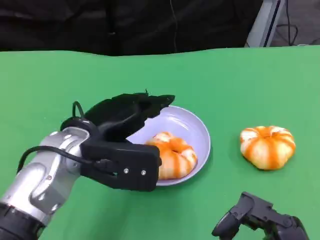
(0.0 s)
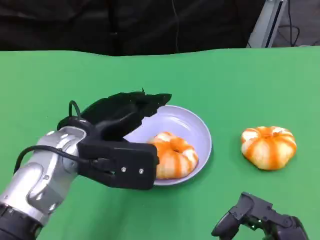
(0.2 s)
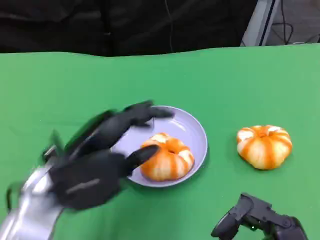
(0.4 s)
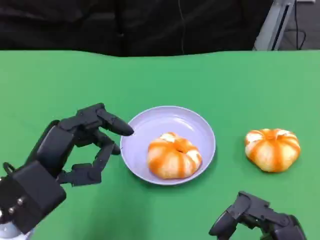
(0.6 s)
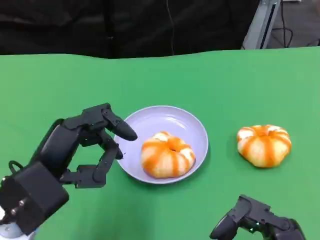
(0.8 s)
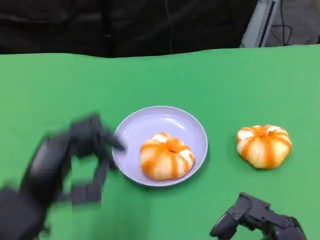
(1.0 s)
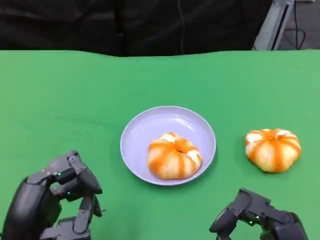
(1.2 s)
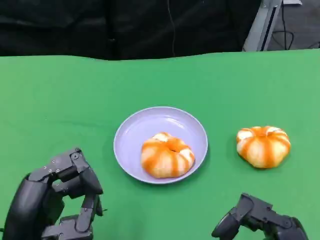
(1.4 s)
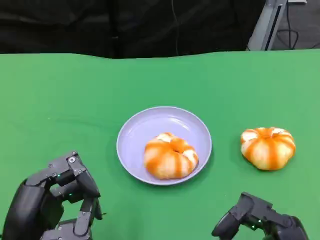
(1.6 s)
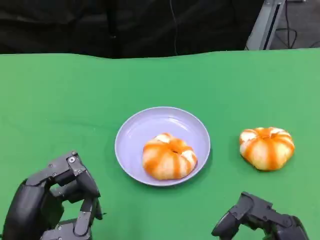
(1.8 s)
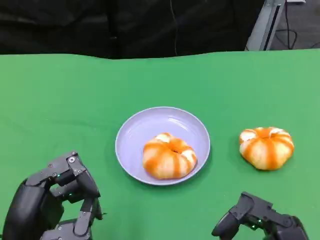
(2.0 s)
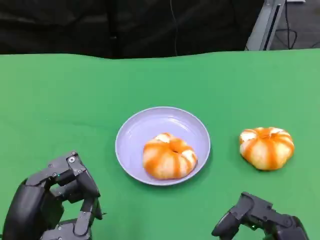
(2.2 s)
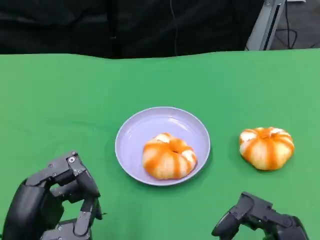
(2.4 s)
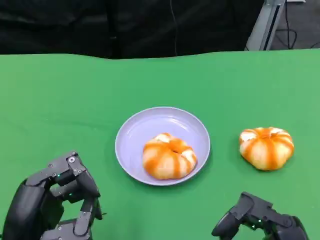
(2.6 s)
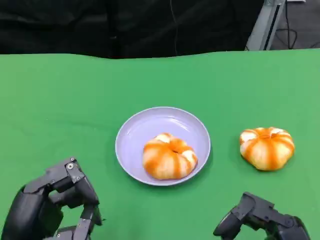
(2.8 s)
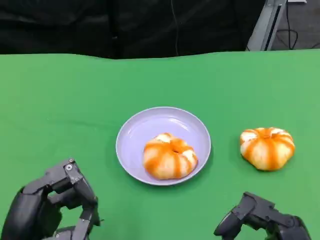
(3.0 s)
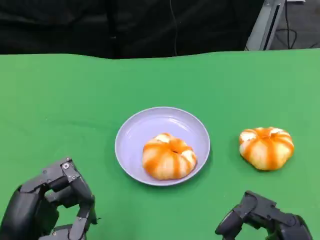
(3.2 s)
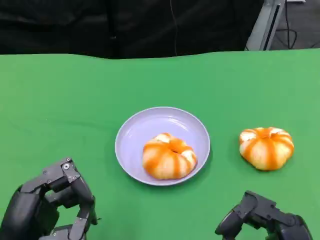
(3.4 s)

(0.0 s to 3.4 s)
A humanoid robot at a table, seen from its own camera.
Task of the whole recording: Grasp the bread from the table and place it into the plate.
0.0 s - 1.6 s: The left hand goes some 15 cm backward and to the left.
1.6 s - 3.4 s: The two hands keep their place.

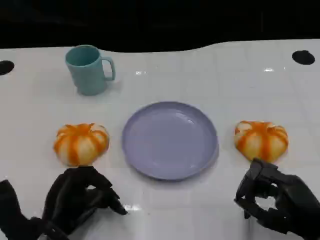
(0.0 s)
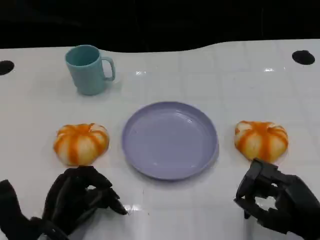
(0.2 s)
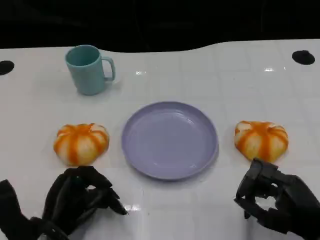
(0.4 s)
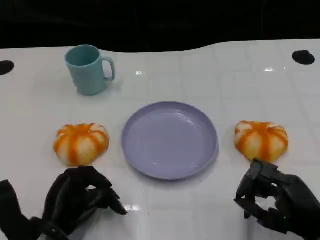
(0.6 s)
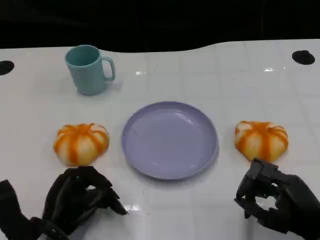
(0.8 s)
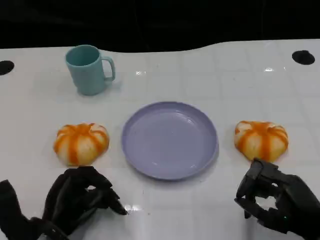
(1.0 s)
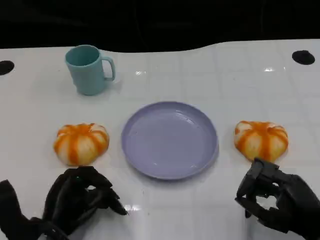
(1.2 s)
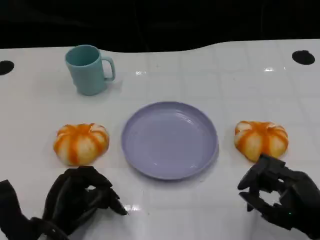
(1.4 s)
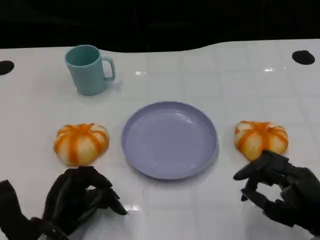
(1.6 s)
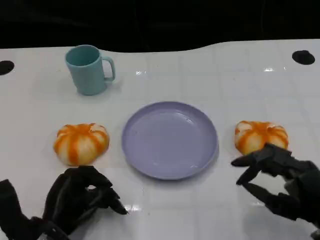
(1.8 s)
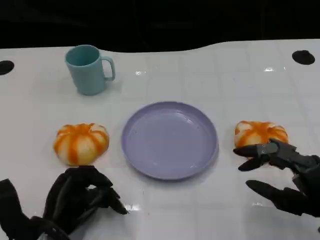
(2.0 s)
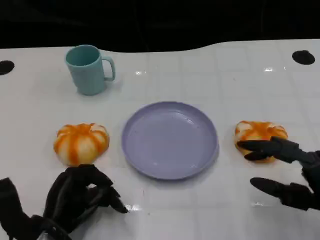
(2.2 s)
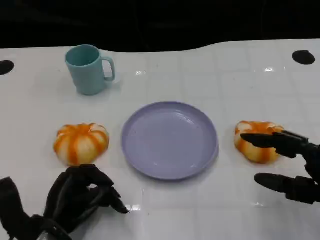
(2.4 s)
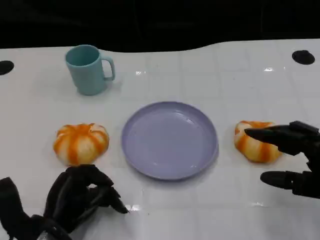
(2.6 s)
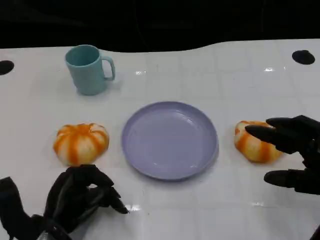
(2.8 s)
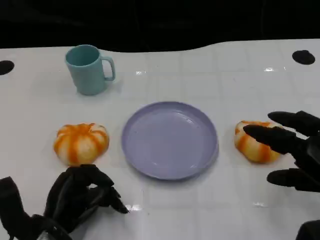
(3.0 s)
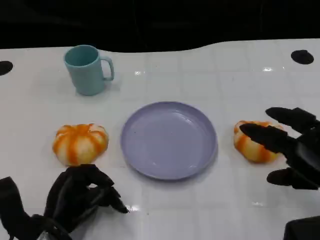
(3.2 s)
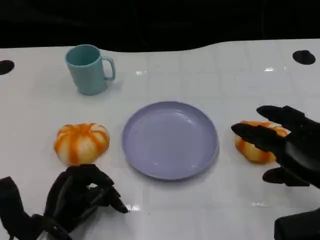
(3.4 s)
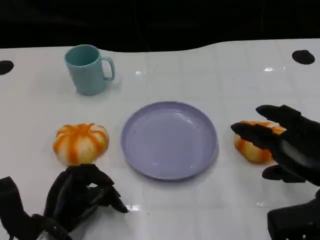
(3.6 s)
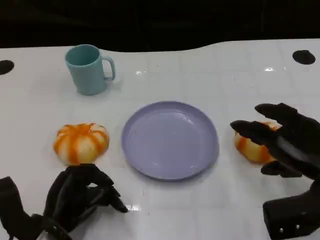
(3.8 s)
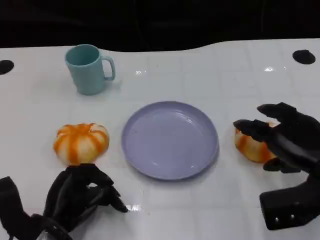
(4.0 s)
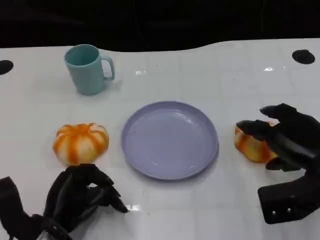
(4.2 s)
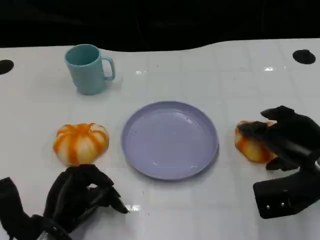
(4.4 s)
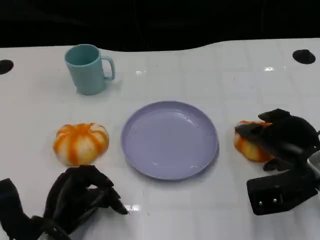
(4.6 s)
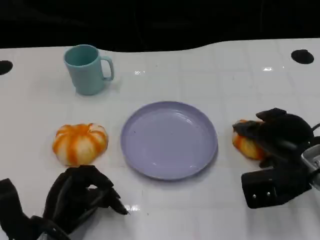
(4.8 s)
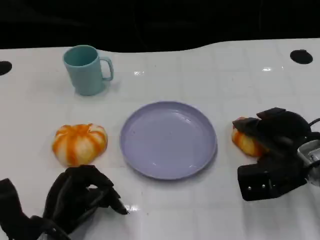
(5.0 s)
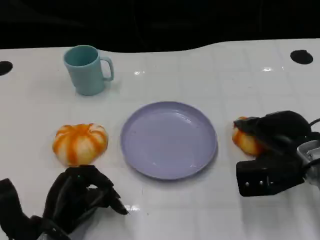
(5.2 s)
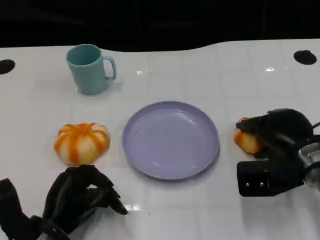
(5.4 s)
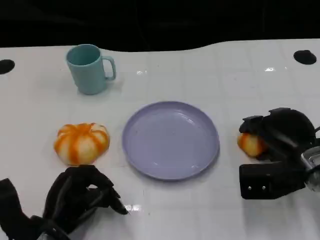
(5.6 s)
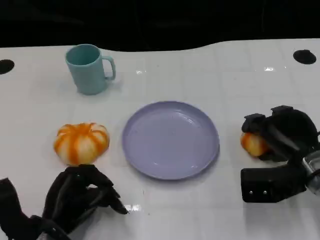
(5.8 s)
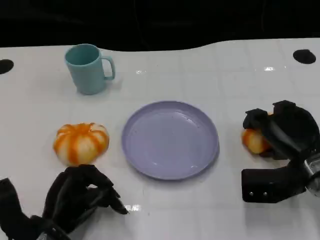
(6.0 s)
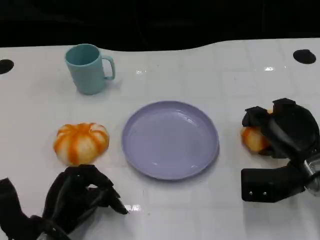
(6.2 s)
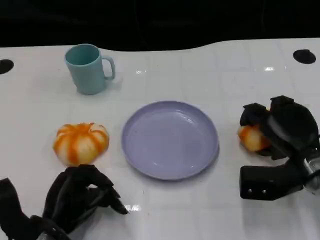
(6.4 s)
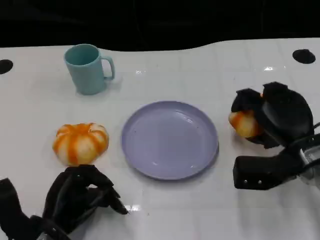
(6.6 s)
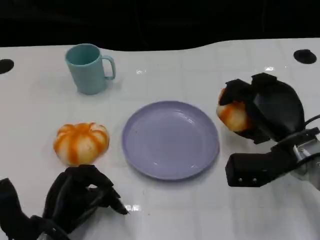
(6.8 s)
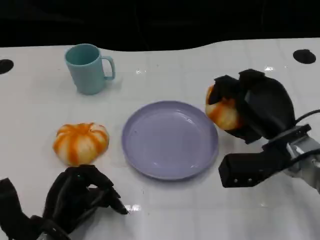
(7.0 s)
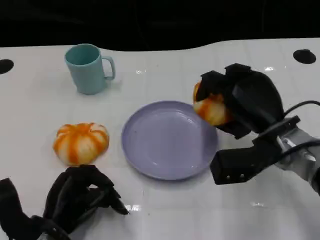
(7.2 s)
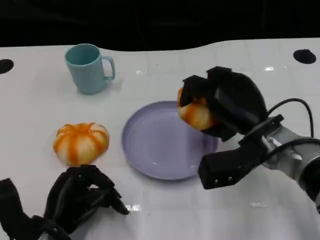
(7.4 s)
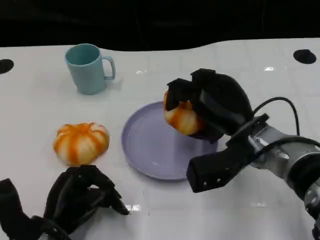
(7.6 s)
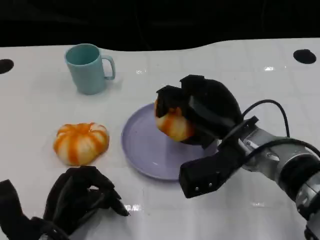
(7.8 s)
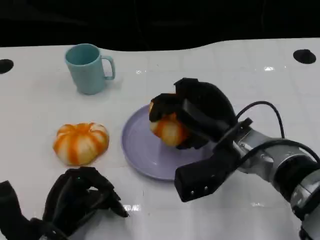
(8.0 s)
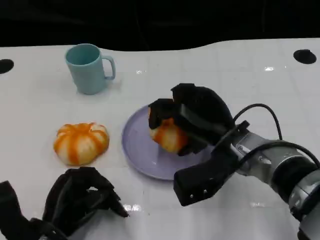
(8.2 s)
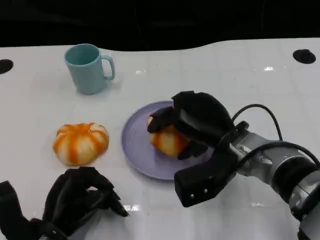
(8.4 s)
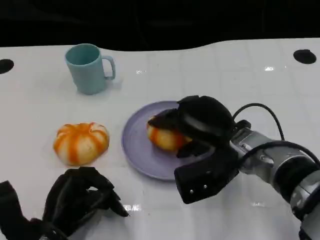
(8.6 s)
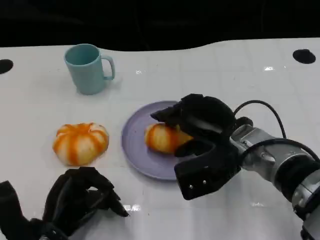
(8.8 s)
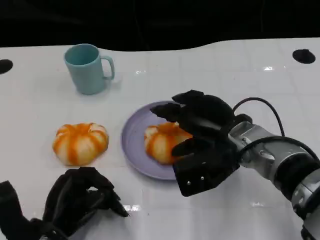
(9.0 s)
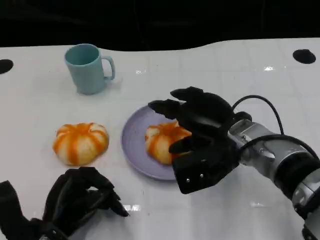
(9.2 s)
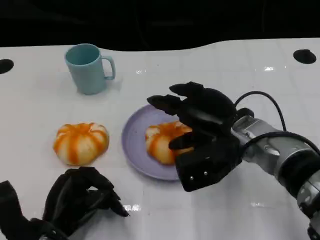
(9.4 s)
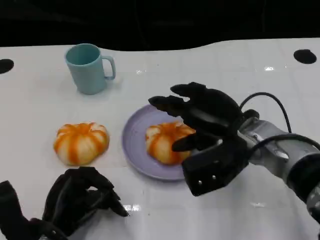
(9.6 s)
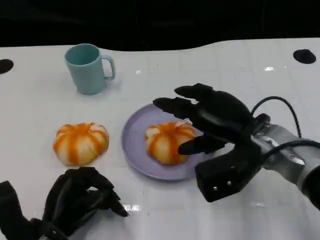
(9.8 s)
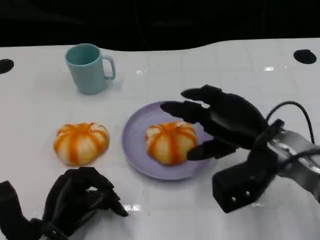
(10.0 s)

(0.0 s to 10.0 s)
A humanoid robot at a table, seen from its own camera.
Task of the whole recording: Grasp the bread from the table and place it into the plate.
0.0 s - 1.4 s: The two hands keep their place.
1.4 s - 2.8 s: The right hand shifts about 5 cm upward.
2.8 s - 4.2 s: The right hand shifts about 5 cm forward.
4.2 s - 5.8 s: The hands make only small movements.
5.8 s - 7.2 s: The right hand is displaced to the left by approximately 5 cm.
7.2 s - 8.6 s: The right hand moves to the left, about 5 cm.
8.6 s - 10.0 s: The right hand travels to the right by approximately 5 cm.

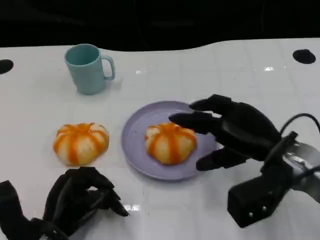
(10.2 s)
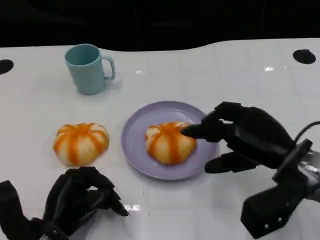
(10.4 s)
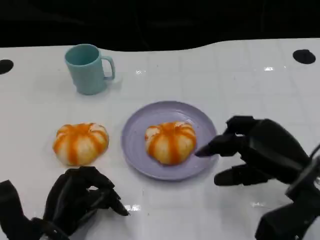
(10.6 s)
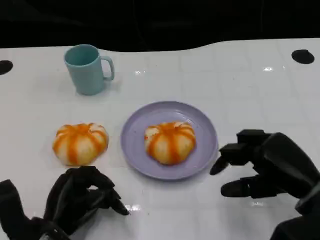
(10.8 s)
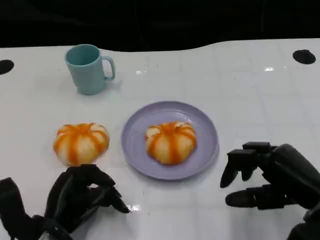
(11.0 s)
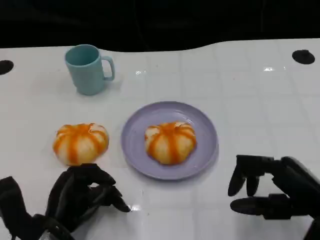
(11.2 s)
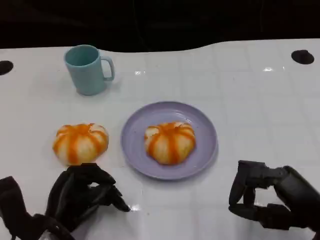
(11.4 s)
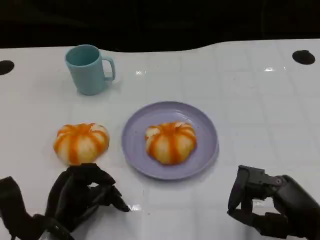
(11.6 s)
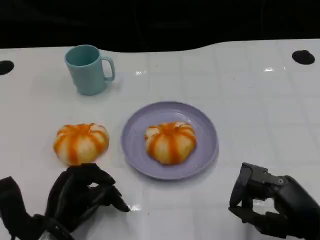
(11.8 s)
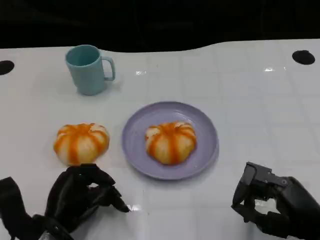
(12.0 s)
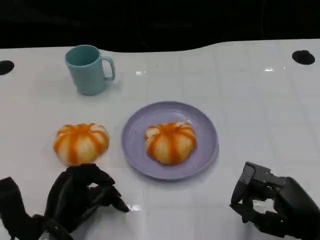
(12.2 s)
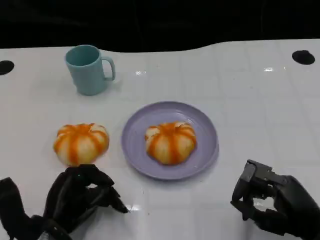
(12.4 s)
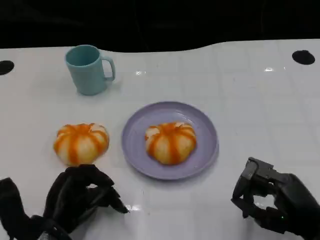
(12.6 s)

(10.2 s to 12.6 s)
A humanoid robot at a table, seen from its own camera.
Task of the whole recording: Grasp the bread from the table and place it into the plate.
10.2 s - 11.4 s: The right hand travels backward and to the right by approximately 10 cm.
11.4 s - 12.6 s: The hands make only small movements.

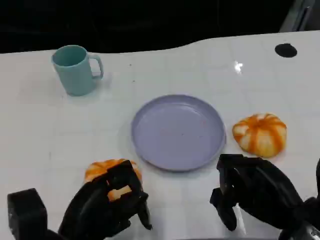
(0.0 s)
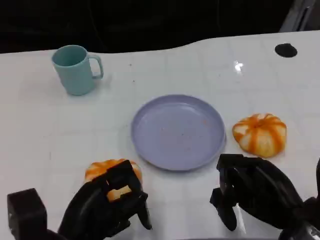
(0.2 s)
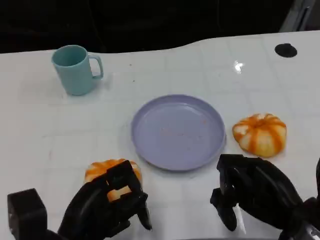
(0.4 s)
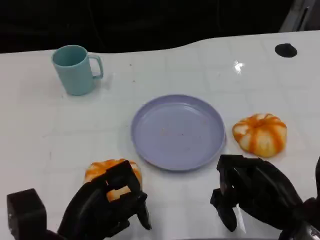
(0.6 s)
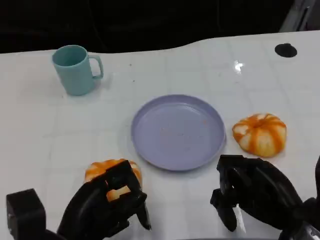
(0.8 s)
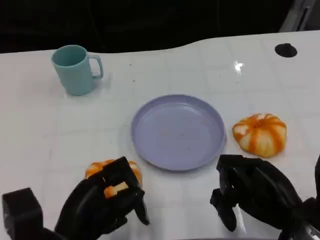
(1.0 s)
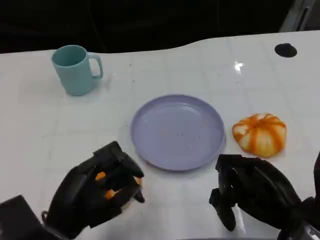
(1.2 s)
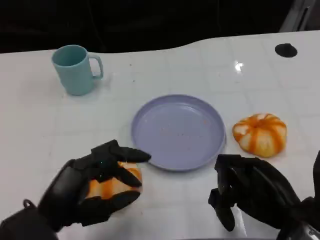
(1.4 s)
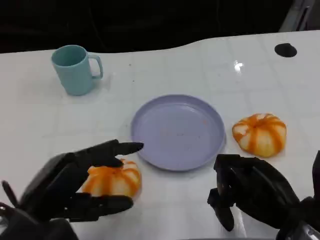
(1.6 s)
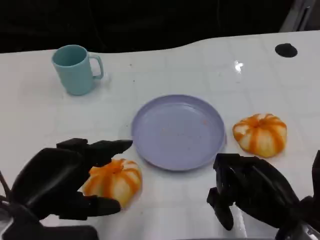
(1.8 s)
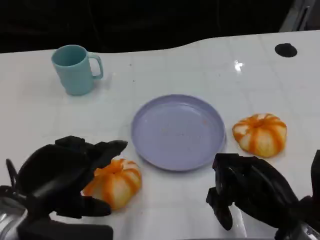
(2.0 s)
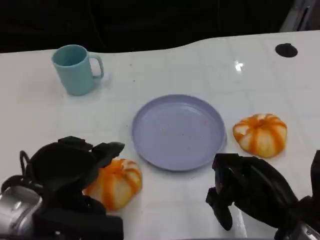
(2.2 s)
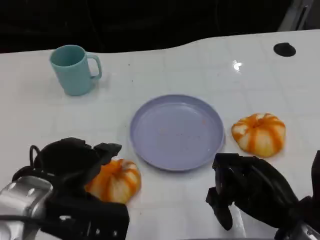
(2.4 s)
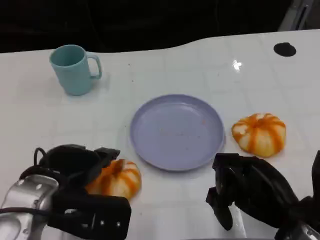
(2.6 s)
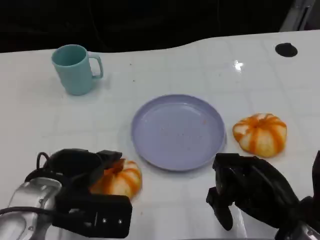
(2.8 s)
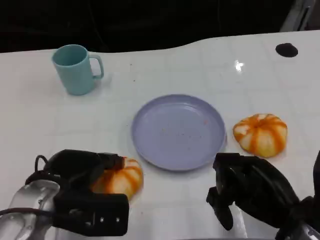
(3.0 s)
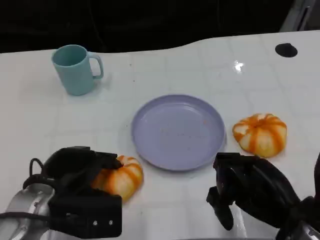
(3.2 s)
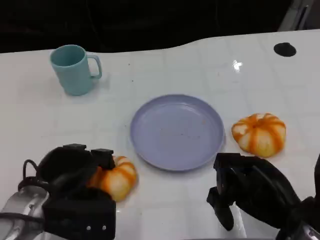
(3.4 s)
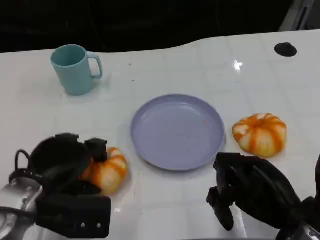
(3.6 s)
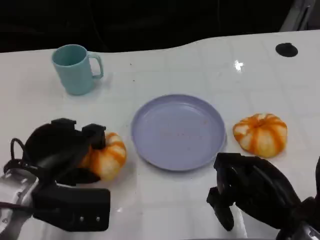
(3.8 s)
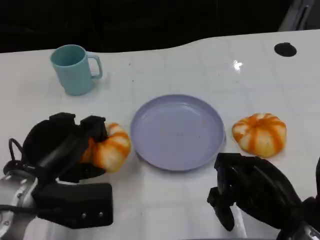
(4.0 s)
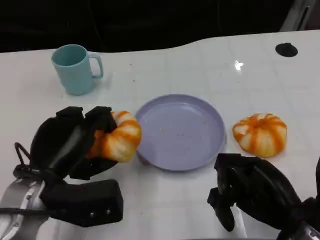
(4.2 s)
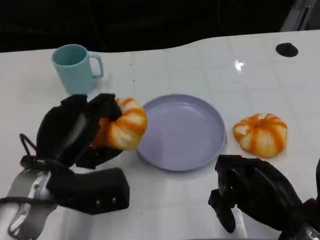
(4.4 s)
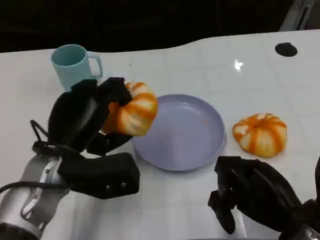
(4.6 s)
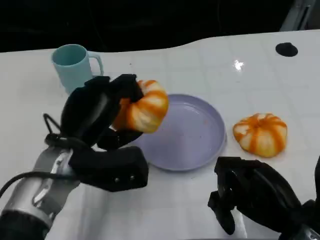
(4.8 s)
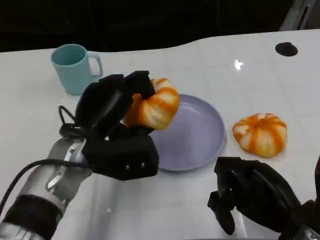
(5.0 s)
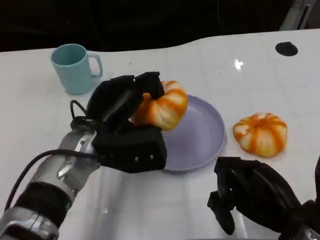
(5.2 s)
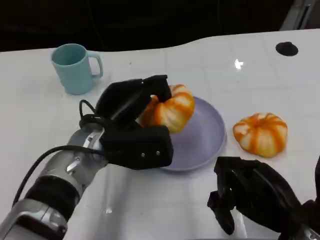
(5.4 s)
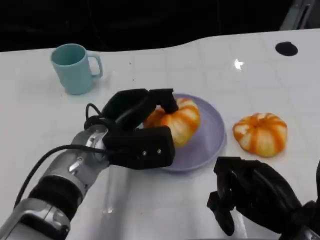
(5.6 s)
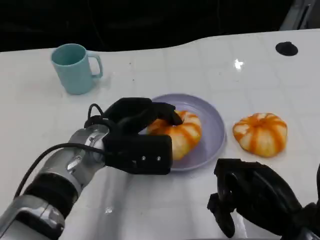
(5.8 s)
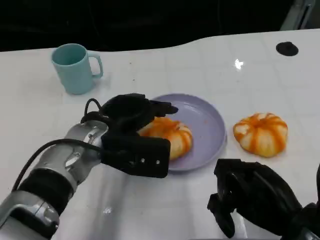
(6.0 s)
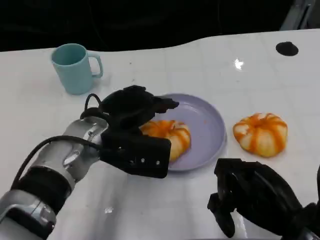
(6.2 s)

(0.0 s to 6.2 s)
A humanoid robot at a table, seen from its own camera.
Task of the whole recording: Grasp the bread from the table and place it into the plate.
0.0 s - 1.6 s: The left hand shifts about 5 cm upward.
1.6 s - 3.2 s: The left hand heads forward and downward, covering approximately 10 cm.
3.2 s - 4.6 s: The left hand moves some 5 cm.
4.6 s - 6.2 s: The left hand shifts by approximately 5 cm.
